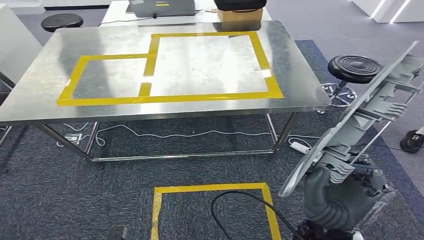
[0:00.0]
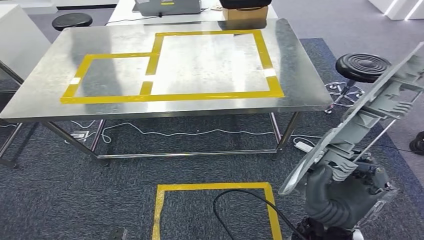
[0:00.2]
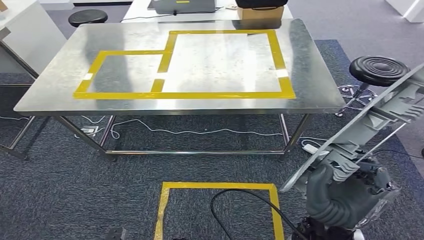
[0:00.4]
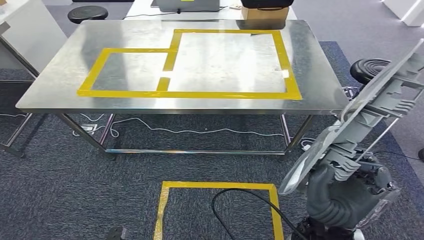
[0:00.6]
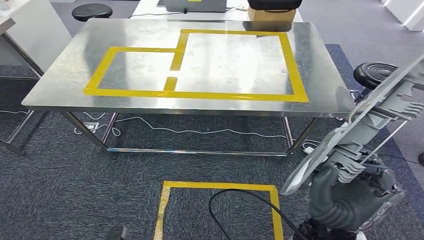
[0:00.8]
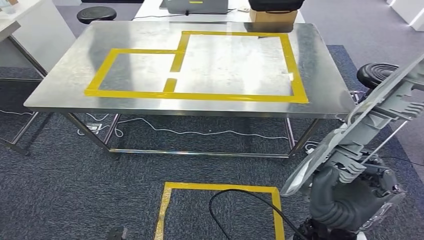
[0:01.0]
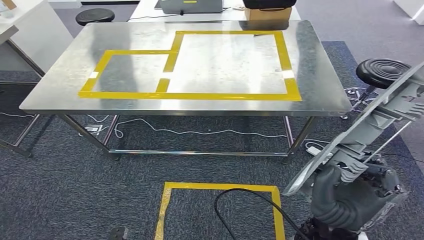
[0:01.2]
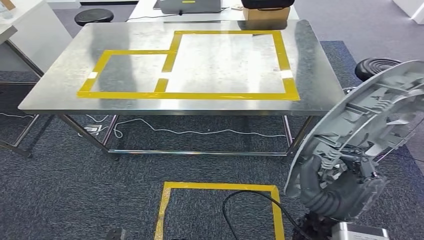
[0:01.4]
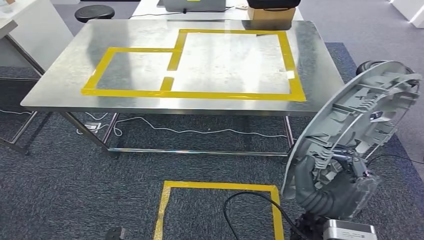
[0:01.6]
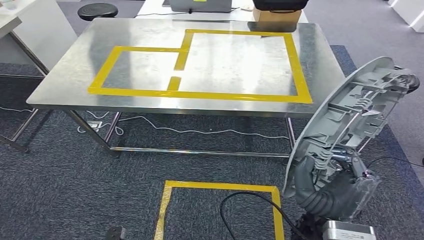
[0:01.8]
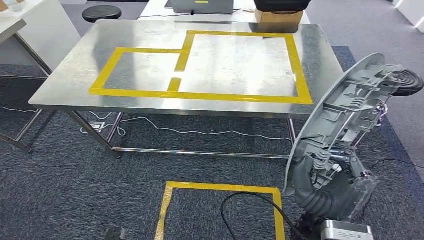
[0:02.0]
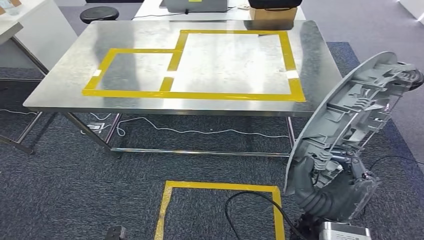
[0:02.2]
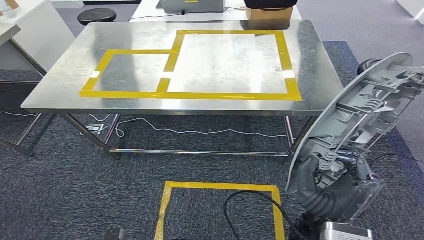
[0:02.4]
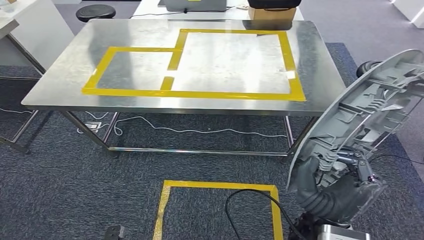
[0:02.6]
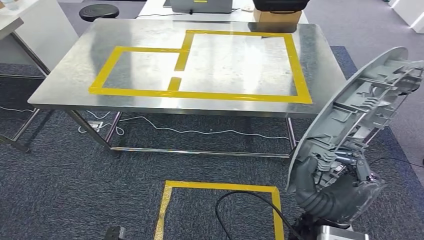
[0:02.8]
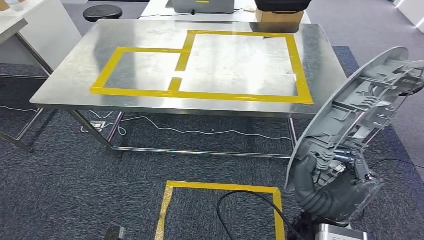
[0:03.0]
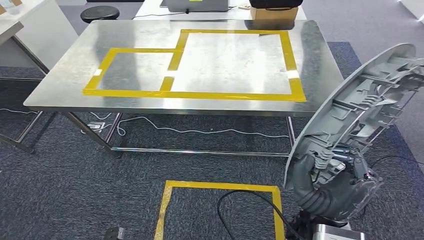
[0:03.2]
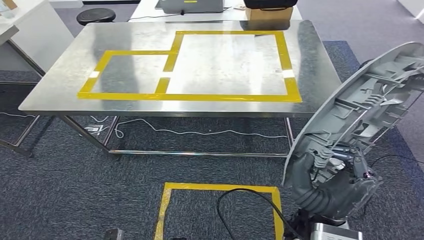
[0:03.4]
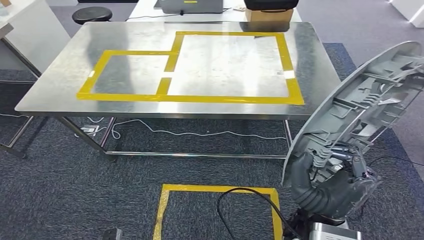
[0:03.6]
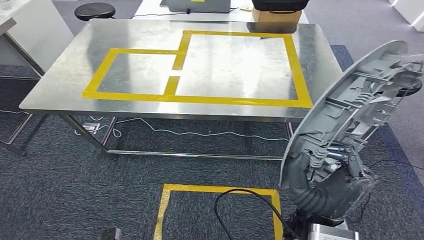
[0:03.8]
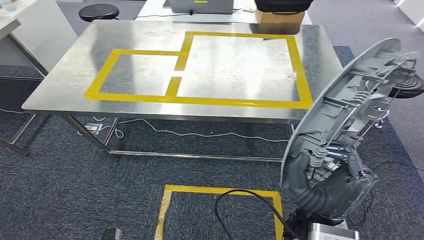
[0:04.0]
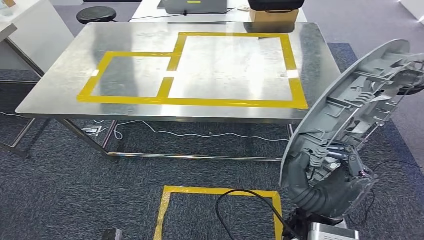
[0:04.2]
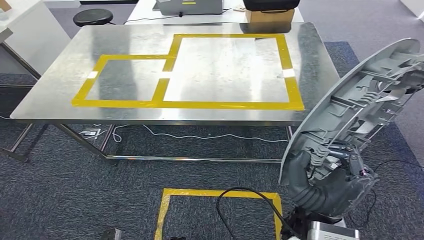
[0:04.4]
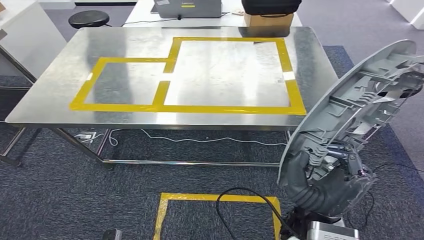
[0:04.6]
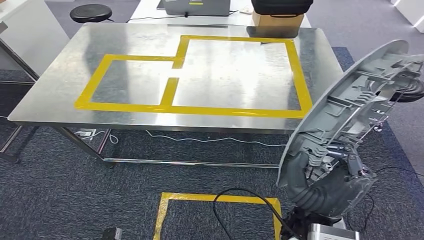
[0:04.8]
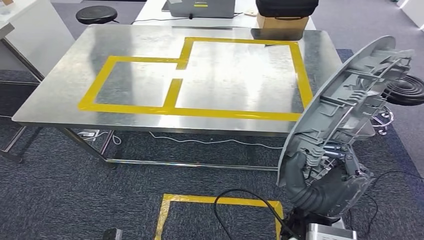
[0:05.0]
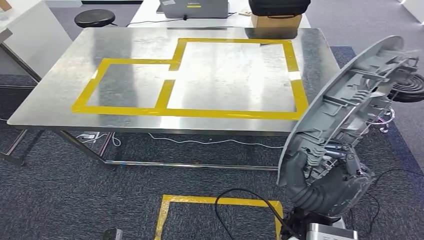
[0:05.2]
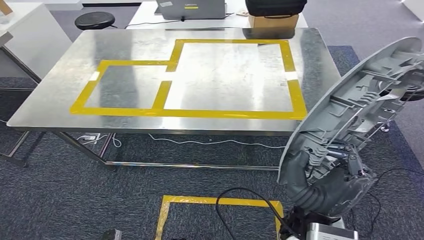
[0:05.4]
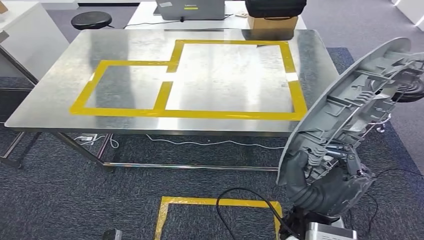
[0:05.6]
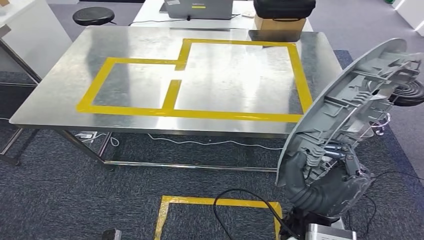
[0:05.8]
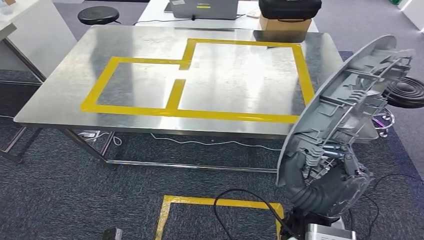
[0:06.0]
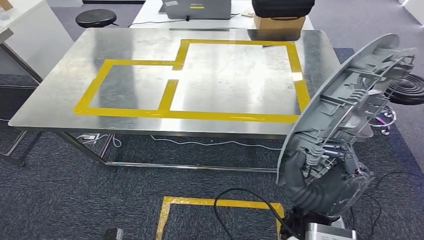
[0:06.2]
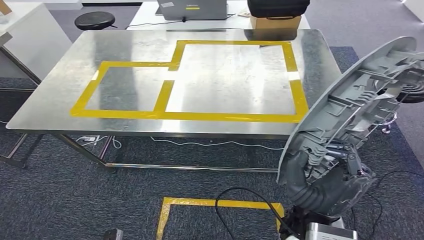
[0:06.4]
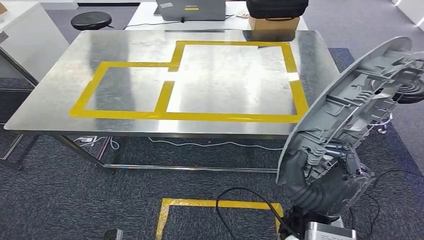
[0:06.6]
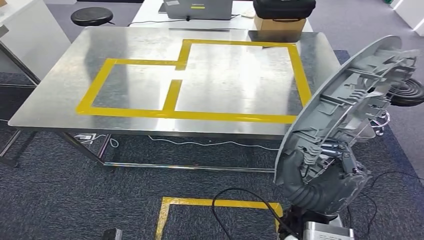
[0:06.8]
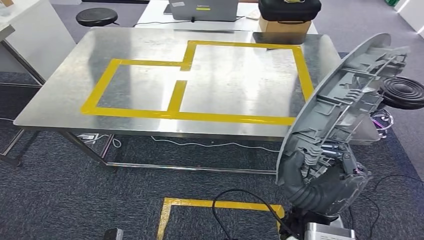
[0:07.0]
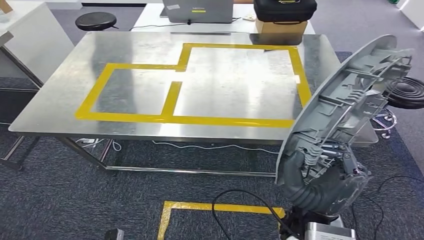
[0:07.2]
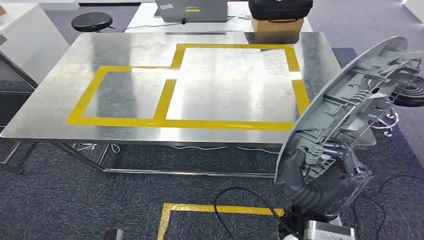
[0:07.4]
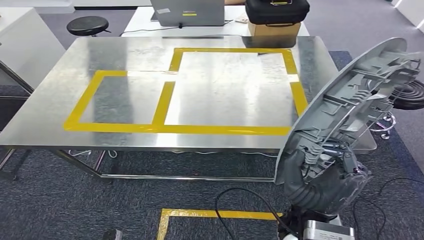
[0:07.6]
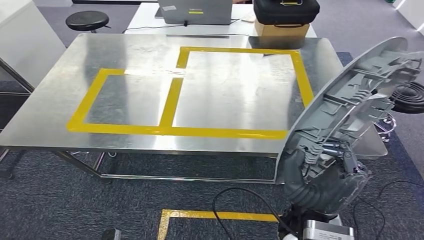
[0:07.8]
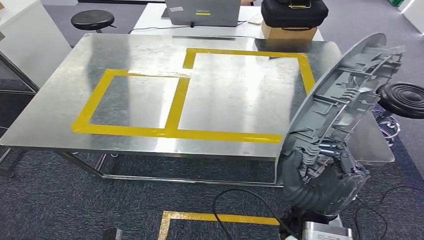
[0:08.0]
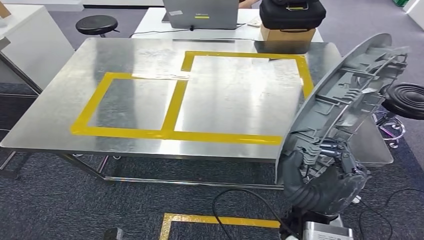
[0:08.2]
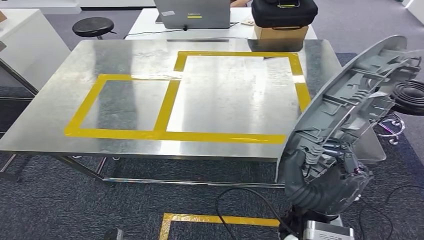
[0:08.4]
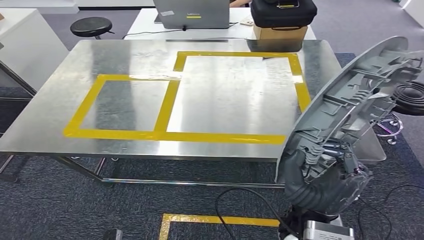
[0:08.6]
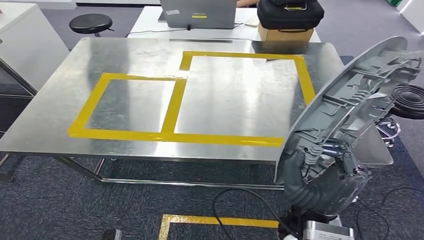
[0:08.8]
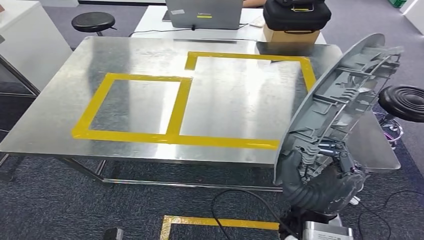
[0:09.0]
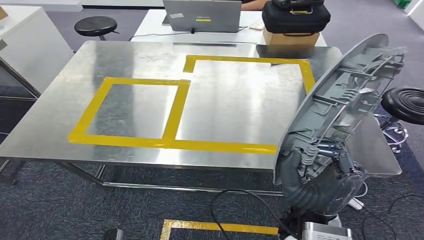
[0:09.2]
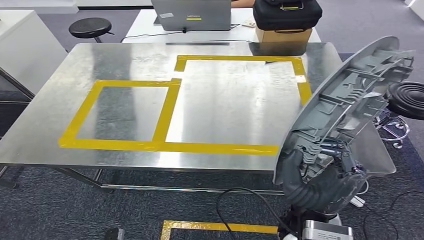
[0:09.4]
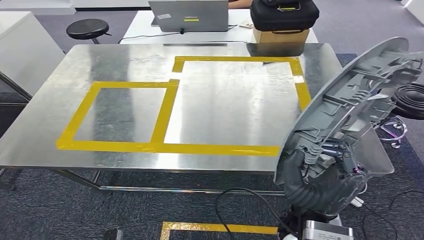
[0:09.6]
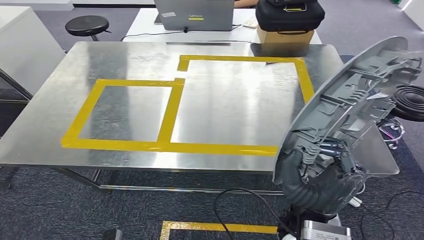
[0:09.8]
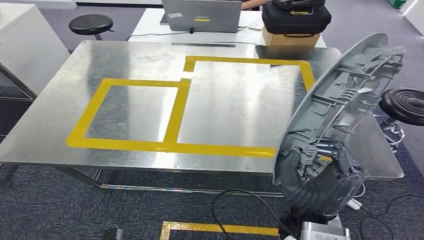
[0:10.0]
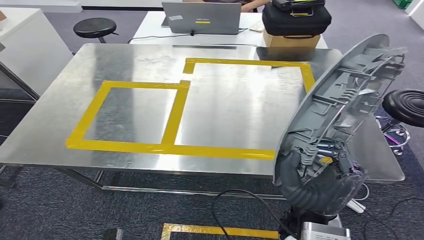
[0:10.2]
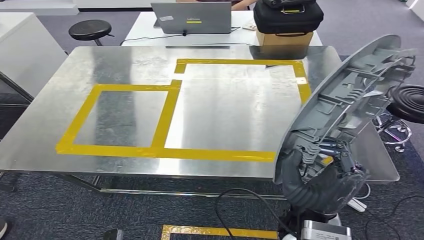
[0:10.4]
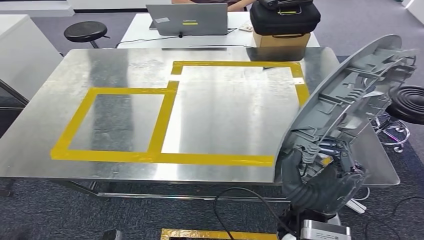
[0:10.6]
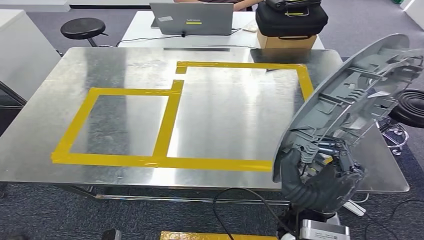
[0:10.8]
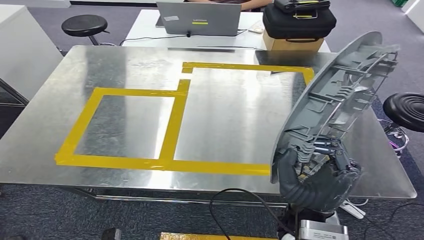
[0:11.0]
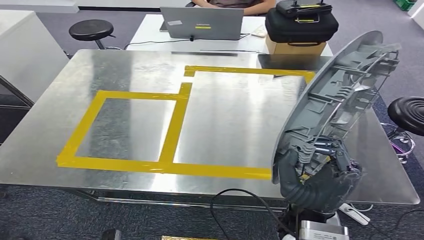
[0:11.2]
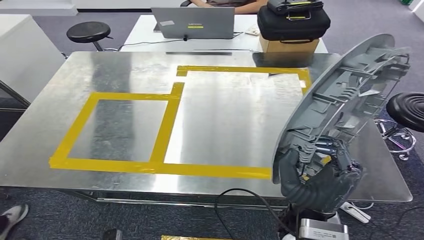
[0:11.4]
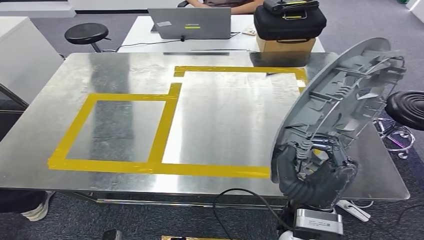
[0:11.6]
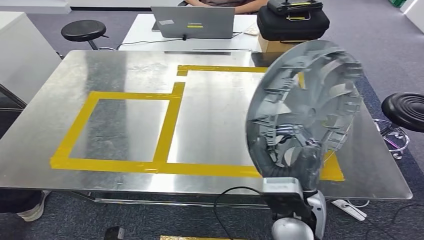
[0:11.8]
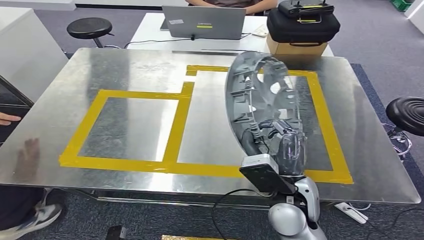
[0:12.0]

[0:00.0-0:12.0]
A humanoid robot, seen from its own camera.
Step, 0:00.0 to 0:08.2: Move the small component to the workbench.

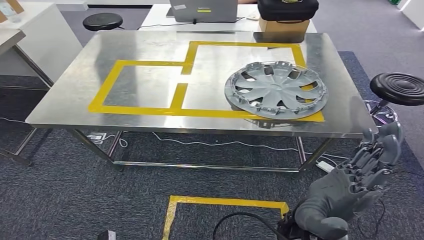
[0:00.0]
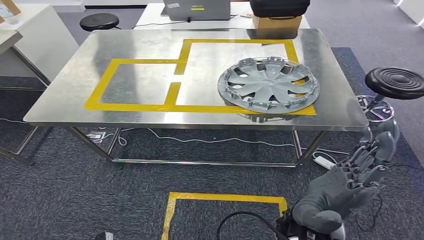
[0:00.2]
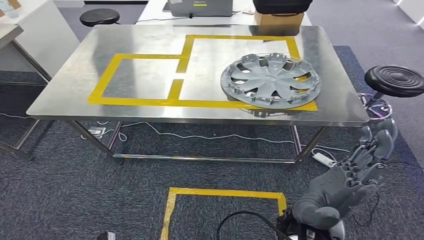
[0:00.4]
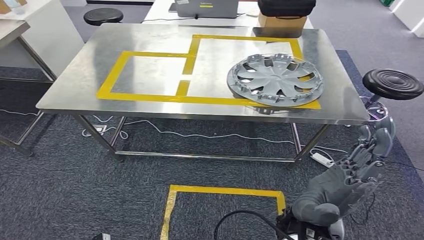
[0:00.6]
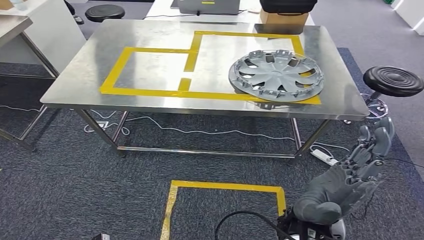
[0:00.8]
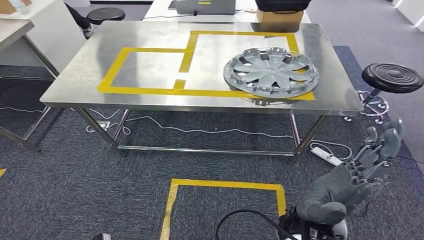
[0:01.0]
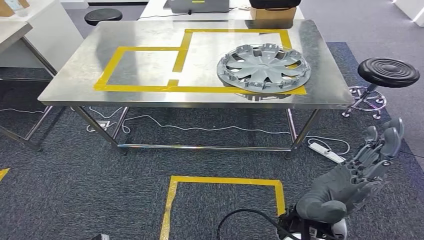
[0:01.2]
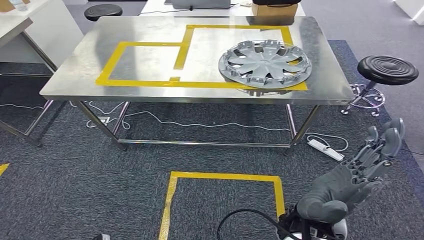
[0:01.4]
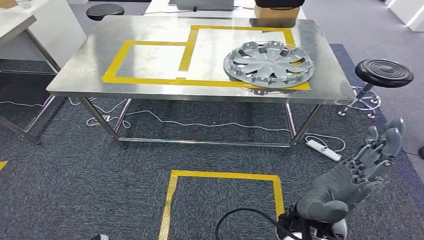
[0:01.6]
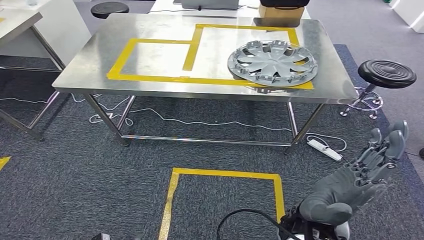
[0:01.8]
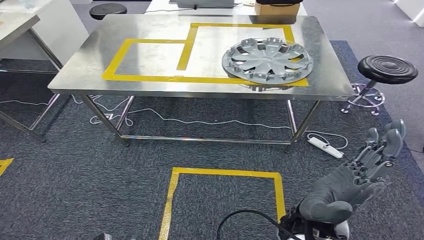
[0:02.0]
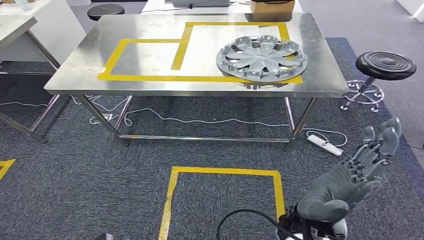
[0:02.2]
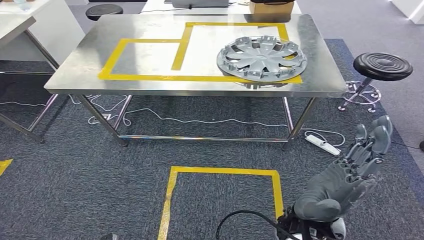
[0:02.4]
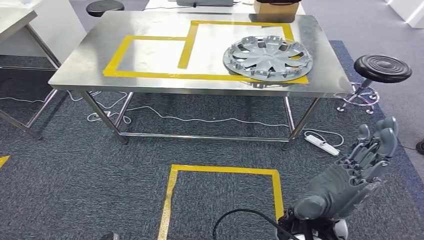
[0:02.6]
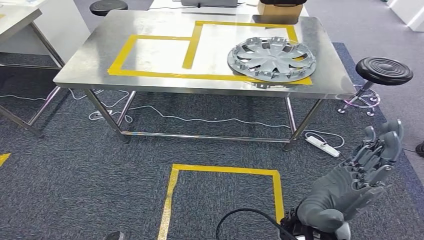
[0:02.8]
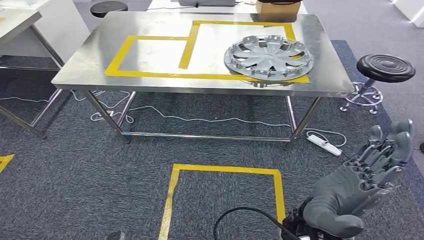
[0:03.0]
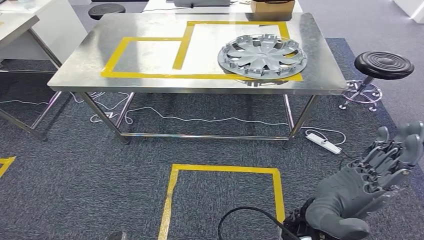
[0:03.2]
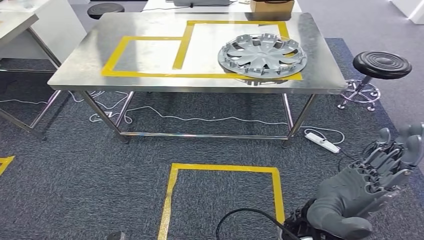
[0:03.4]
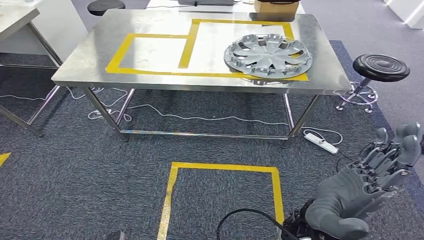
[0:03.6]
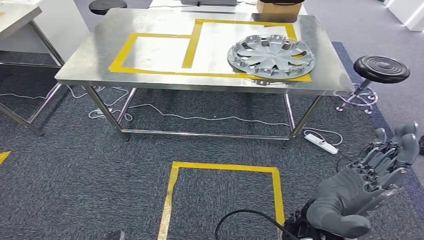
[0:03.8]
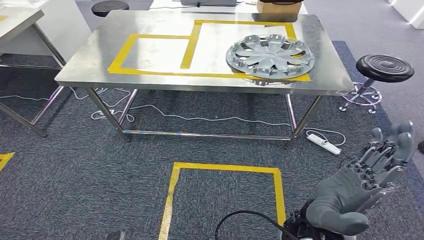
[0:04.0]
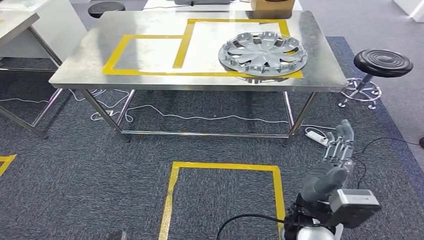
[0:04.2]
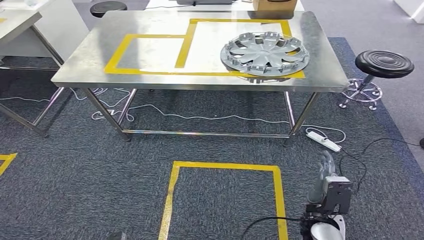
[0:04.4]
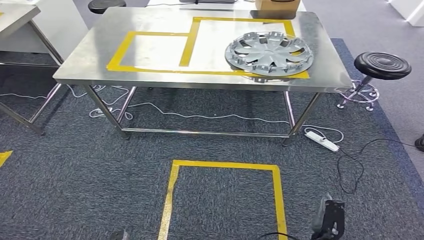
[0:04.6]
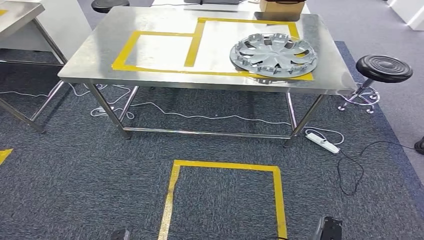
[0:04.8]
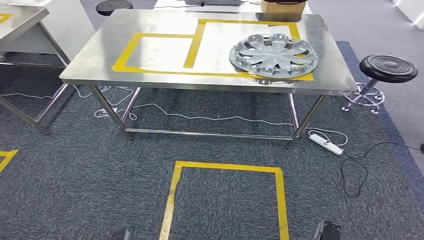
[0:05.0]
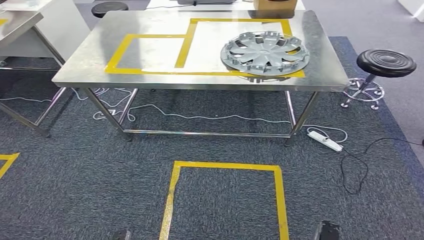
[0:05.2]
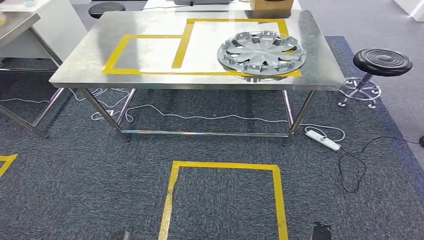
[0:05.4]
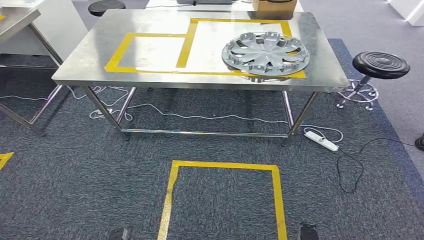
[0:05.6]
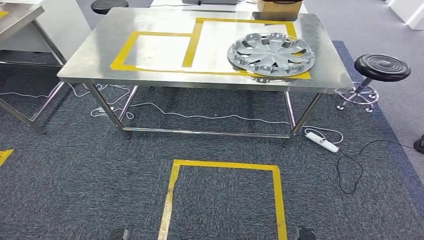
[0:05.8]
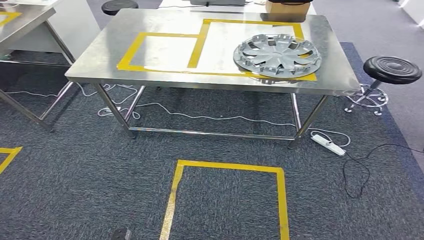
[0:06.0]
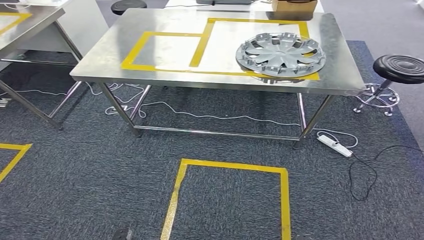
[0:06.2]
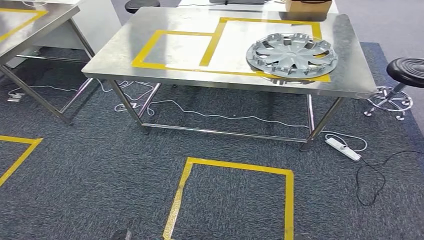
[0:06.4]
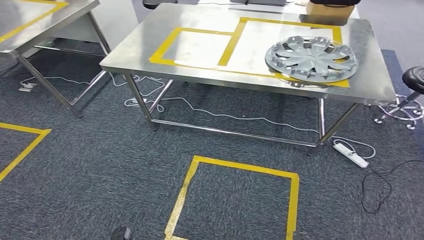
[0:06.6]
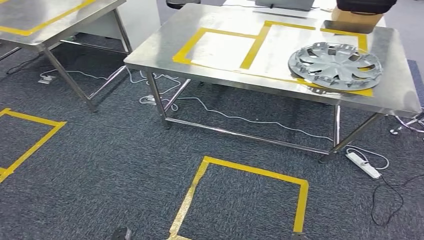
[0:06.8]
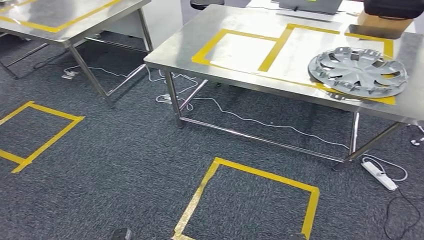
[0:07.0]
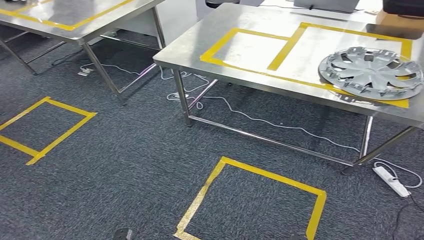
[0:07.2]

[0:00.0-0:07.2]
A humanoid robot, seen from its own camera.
0:04.4 to 0:05.8: The right hand moves downward and backward, about 20 cm.
